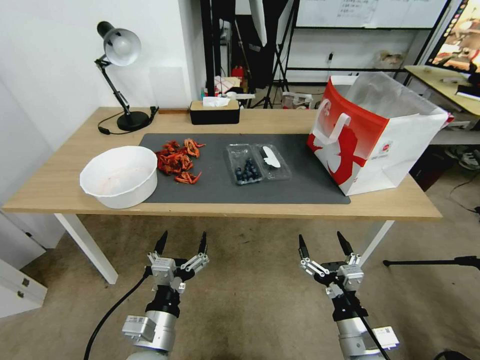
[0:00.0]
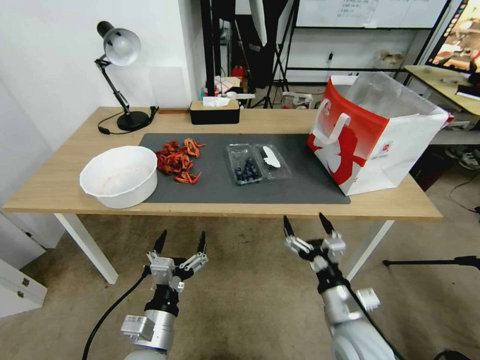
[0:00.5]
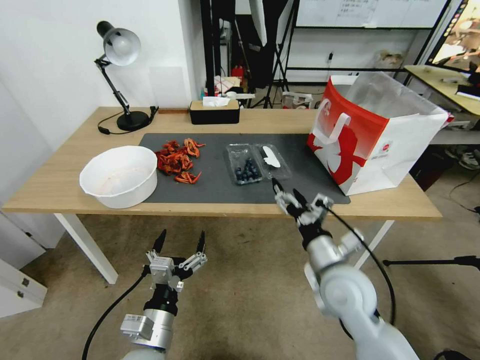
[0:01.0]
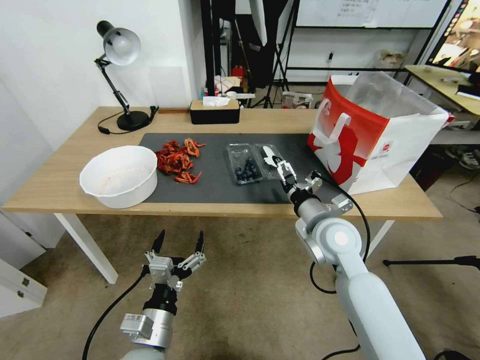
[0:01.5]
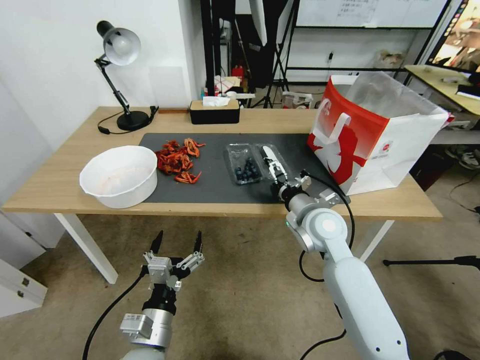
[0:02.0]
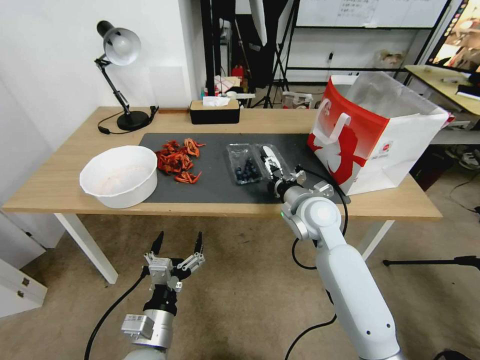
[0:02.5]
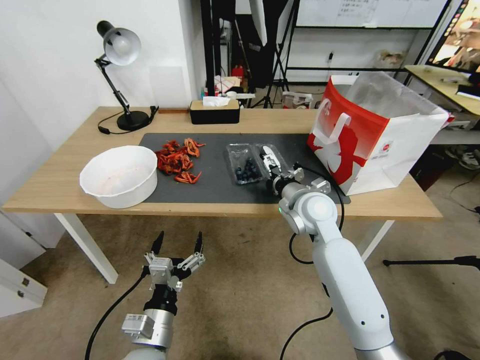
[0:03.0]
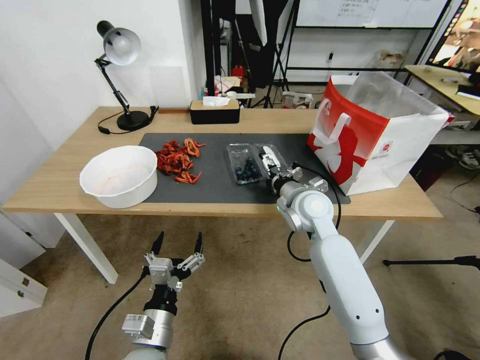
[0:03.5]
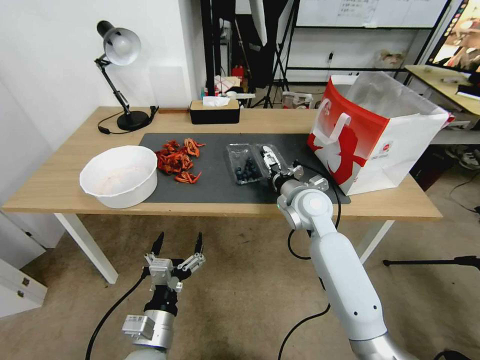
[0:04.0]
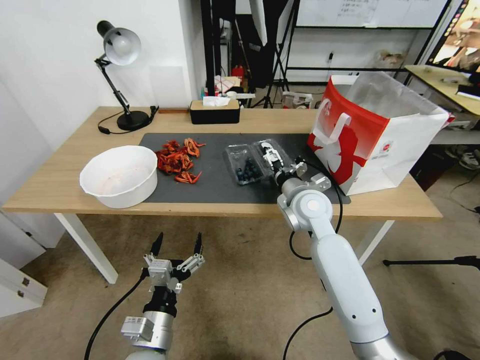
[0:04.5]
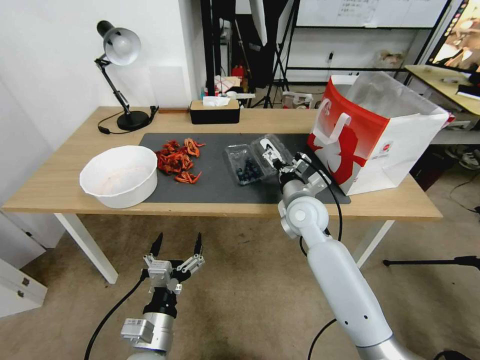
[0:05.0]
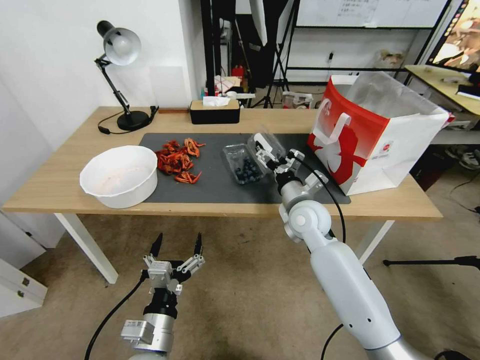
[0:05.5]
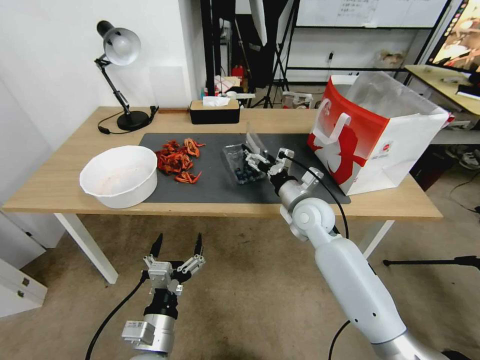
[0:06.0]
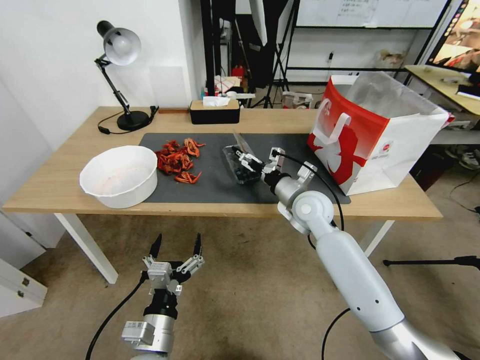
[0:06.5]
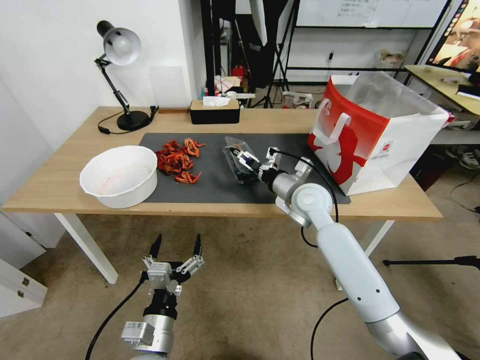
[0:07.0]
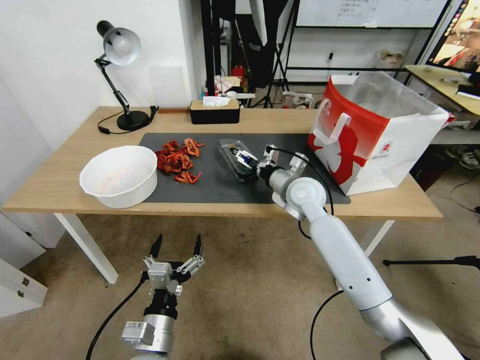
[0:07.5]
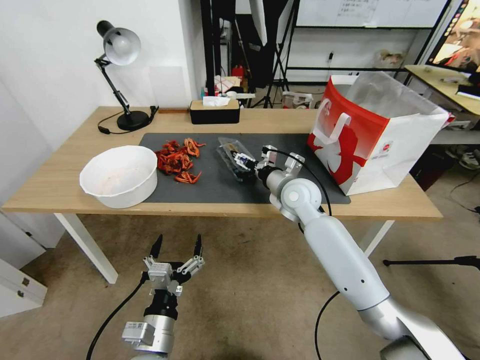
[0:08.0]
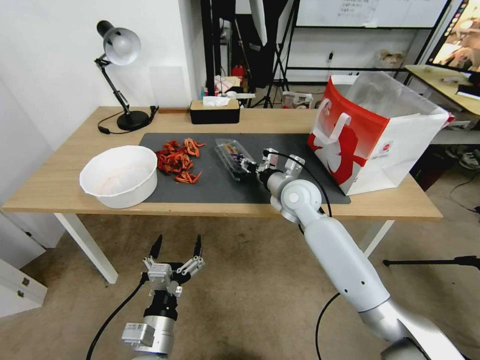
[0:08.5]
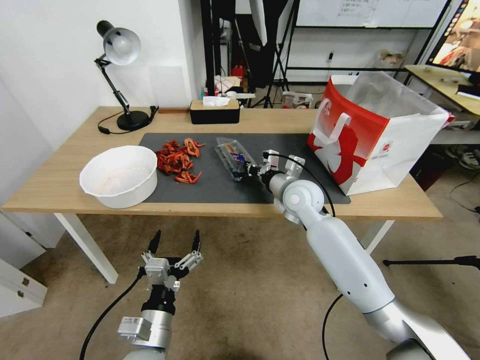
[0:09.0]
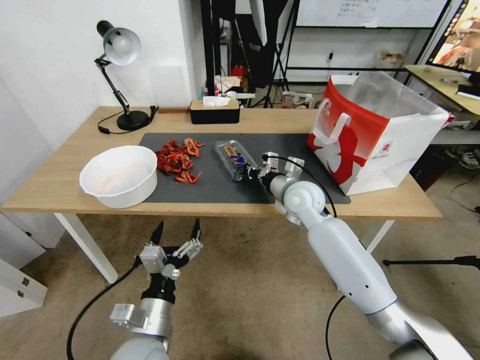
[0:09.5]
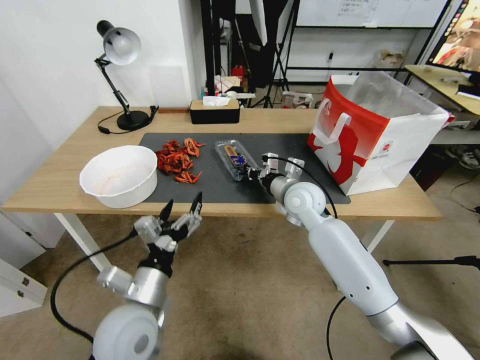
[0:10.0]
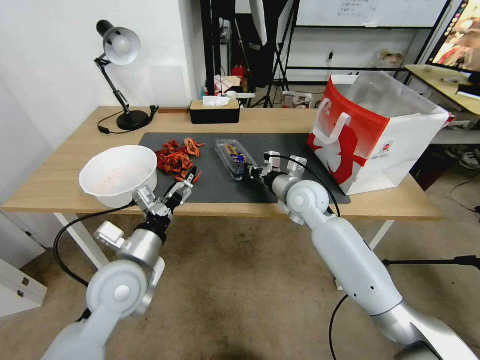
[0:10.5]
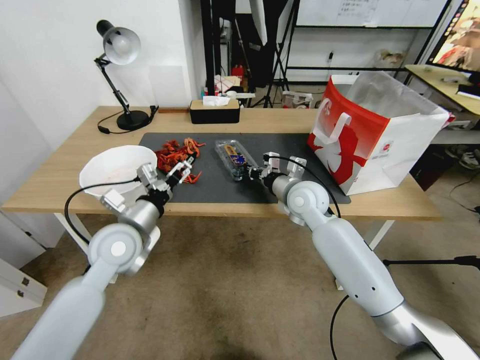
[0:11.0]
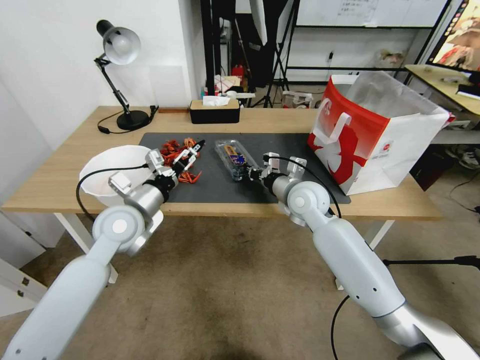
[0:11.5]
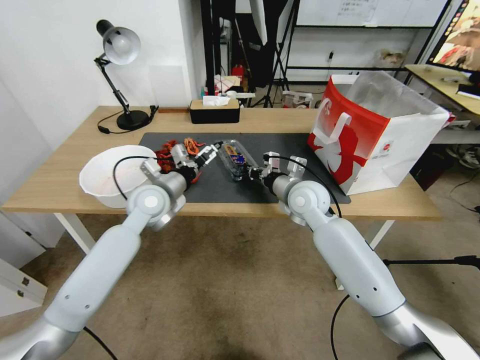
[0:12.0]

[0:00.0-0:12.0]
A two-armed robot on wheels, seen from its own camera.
Task of the whole recording: Close the takeout container lid, then place the container into the takeout bag.
0:00.0 to 0:02.0: The right gripper heads forward and upward, covering some 25 cm.
0:02.0 to 0:04.0: The right gripper changes place by some 5 cm.
0:06.0 to 0:08.0: The right gripper moves approximately 5 cm.
0:08.0 to 0:10.0: The right gripper closes up. Meanwhile the left gripper shifts roughly 10 cm upward and forward.
0:10.0 to 0:12.0: The left gripper moves forward, roughly 25 cm.

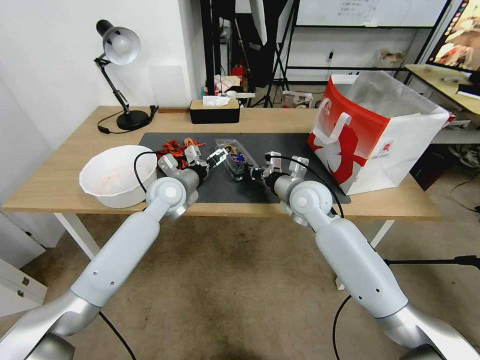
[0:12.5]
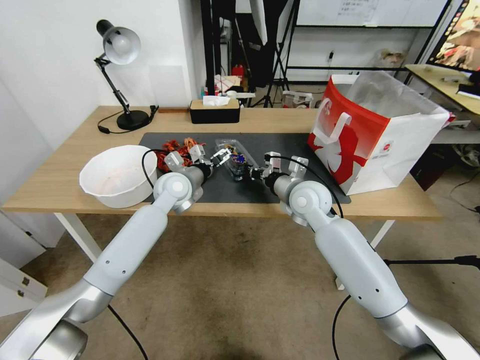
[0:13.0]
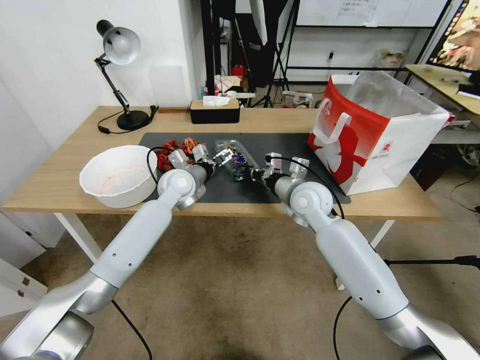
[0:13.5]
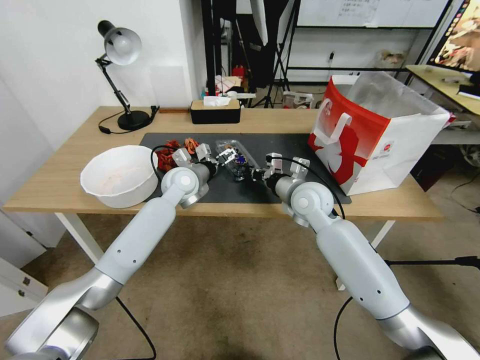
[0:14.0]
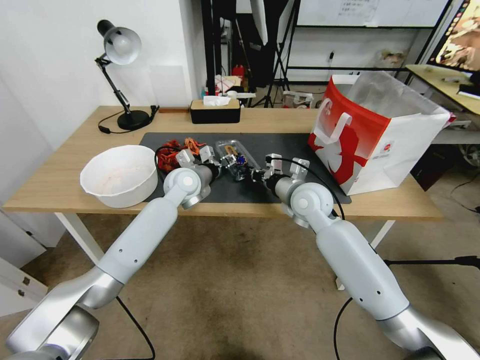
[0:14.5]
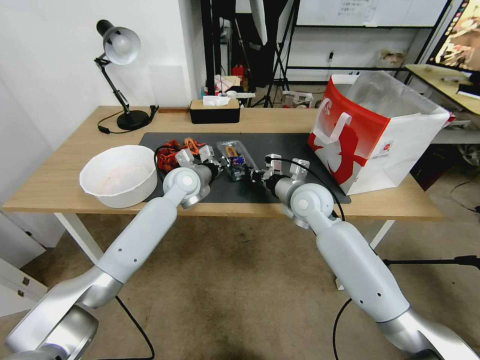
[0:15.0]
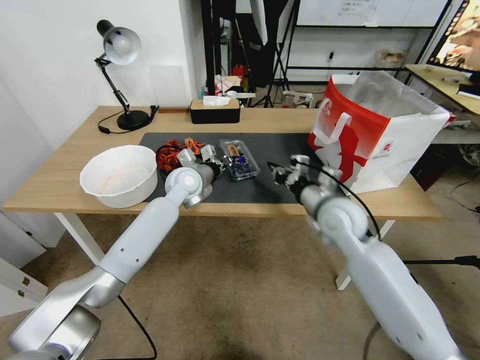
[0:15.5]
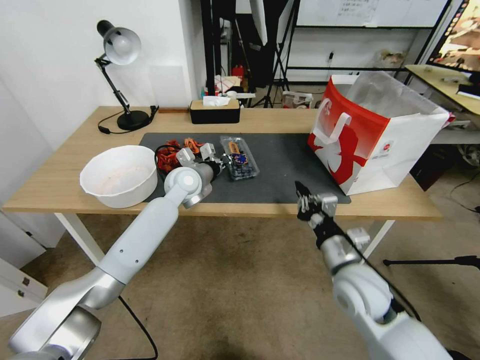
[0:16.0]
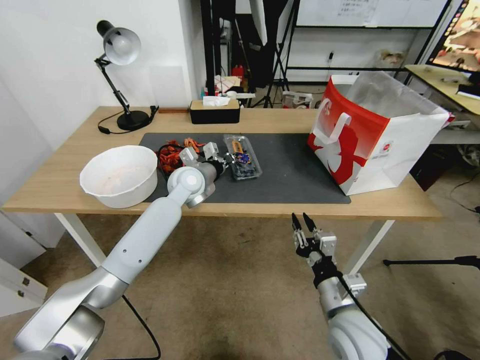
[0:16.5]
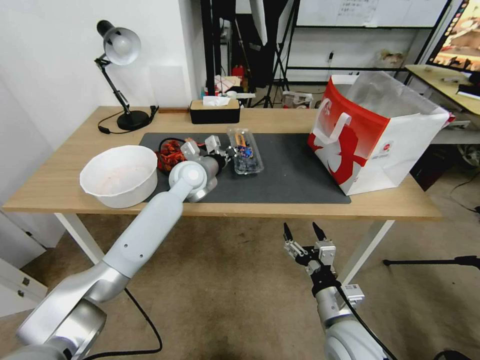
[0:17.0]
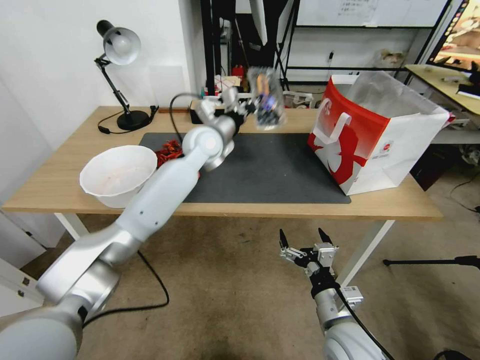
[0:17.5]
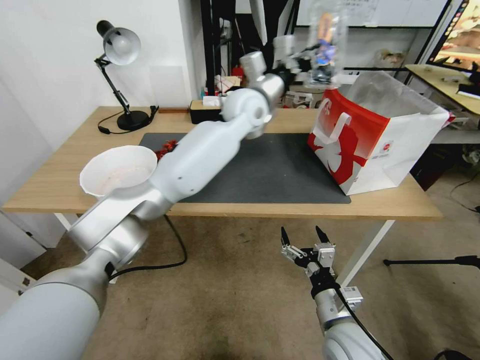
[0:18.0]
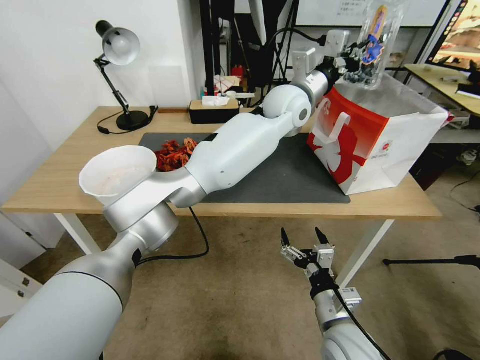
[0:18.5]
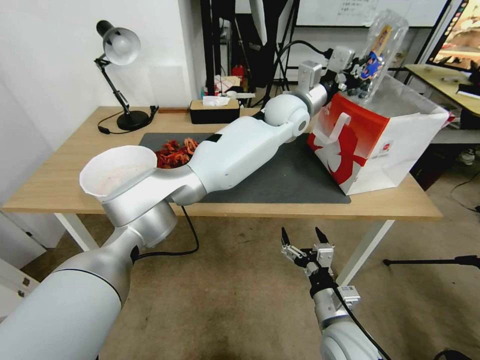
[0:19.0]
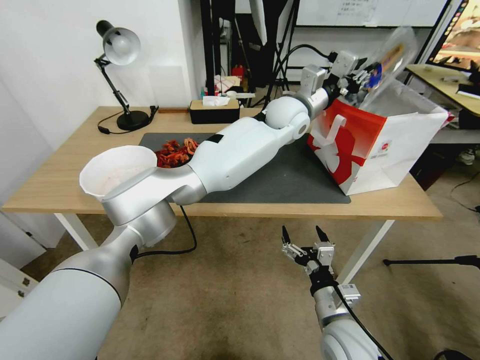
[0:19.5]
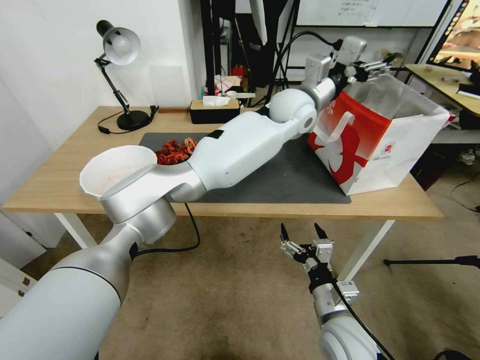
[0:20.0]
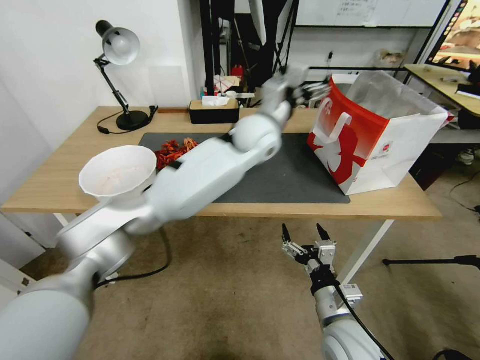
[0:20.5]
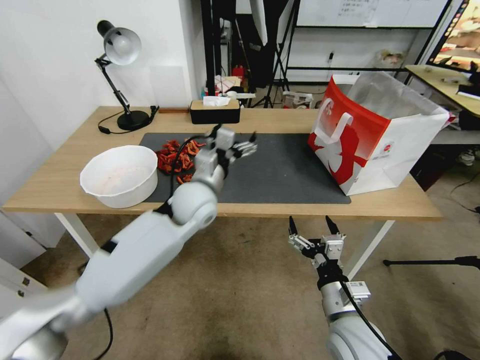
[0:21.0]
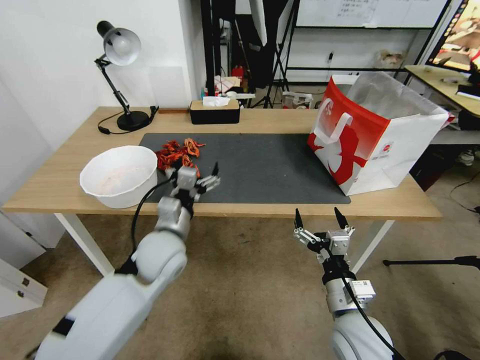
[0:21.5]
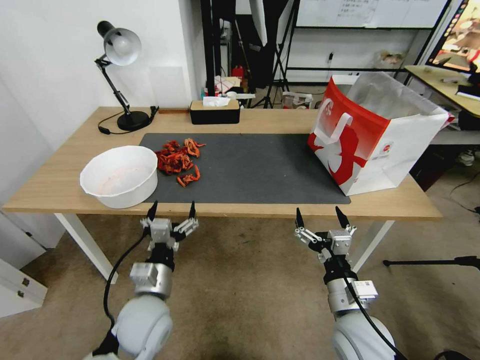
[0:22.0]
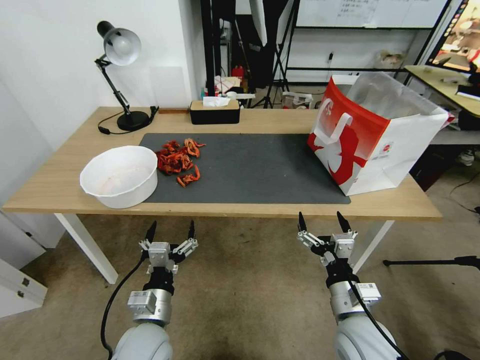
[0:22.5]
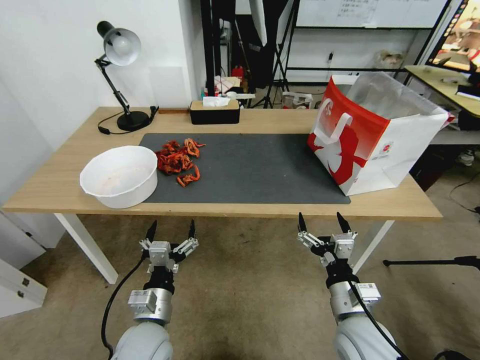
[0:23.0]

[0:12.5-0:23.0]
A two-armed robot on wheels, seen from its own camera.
Task of the whole recording: Close the takeout container lid, then place the container into the takeout bag.
0:12.5 to 0:14.5: The left gripper changes place by approximately 5 cm, and closes.
0:14.5 to 0:16.5: The right gripper goes roughly 25 cm backward and downward; the left gripper closes.
0:16.5 to 0:19.0: The left gripper moves to the right and upward, some 30 cm. Meanwhile the right gripper opens up.
0:19.0 to 0:21.0: The left gripper is displaced to the left, backward and downward by about 30 cm, and opens up.
0:21.0 to 0:23.0: The left gripper moves backward and downward, about 30 cm.

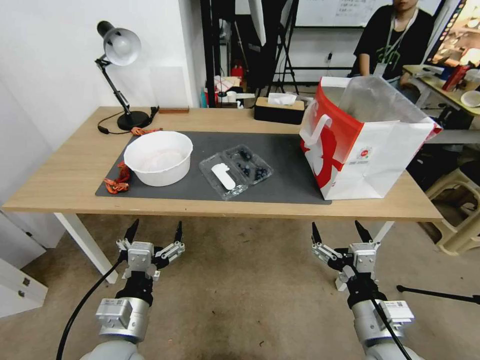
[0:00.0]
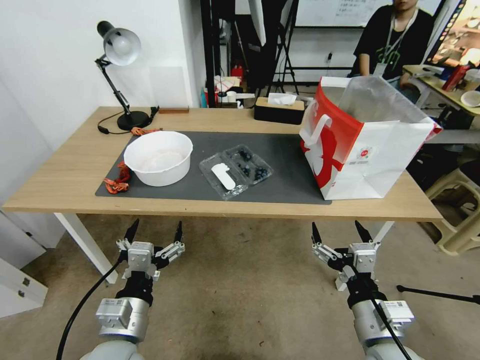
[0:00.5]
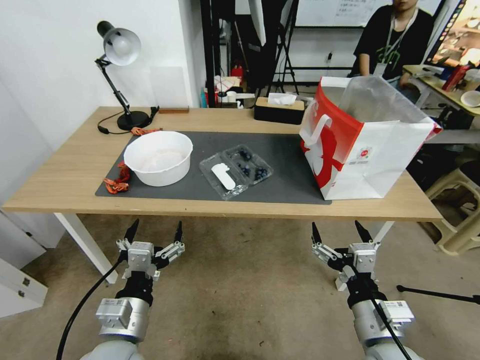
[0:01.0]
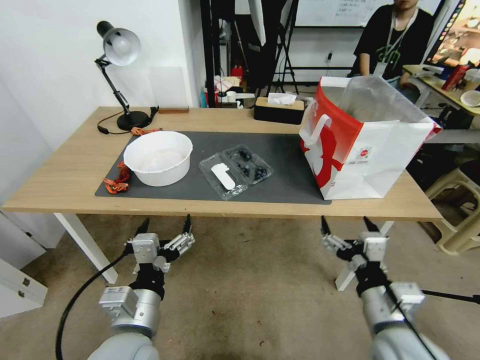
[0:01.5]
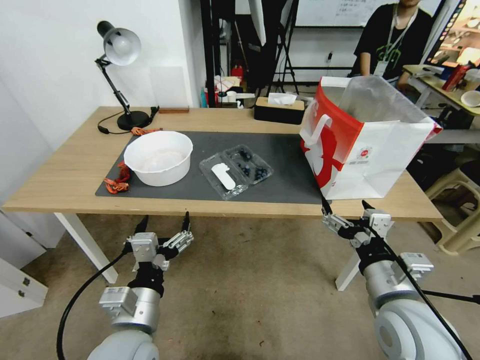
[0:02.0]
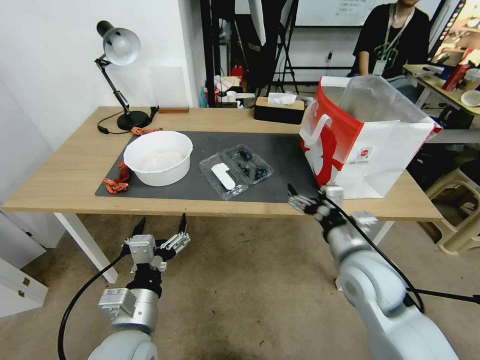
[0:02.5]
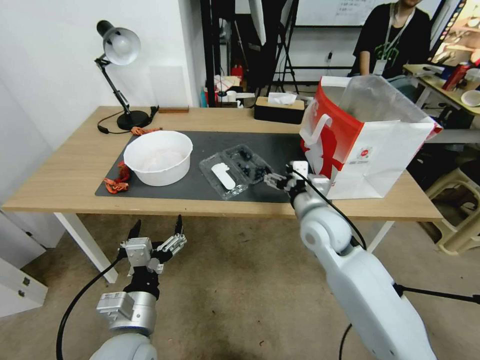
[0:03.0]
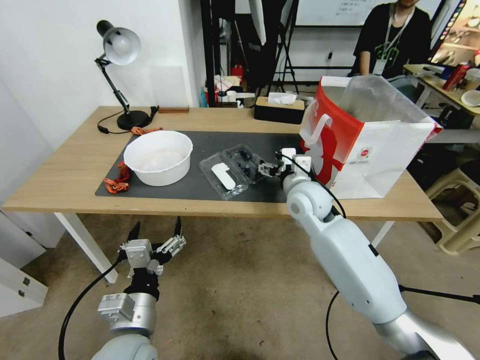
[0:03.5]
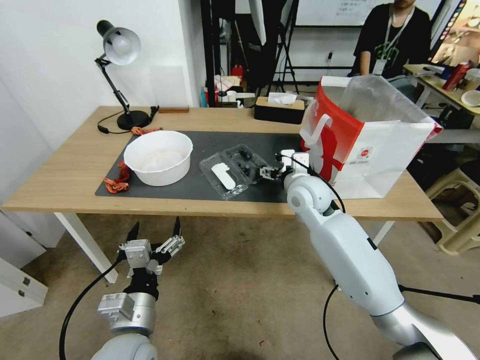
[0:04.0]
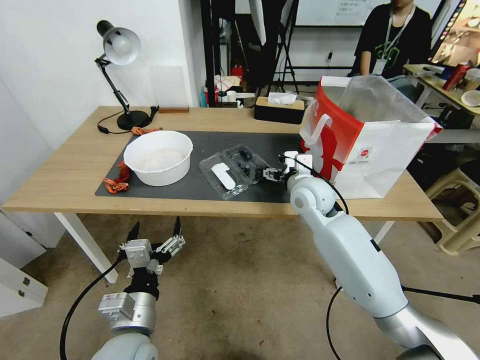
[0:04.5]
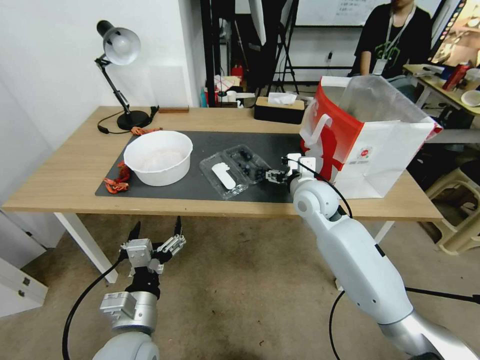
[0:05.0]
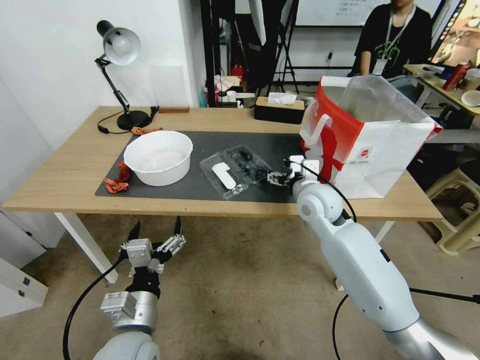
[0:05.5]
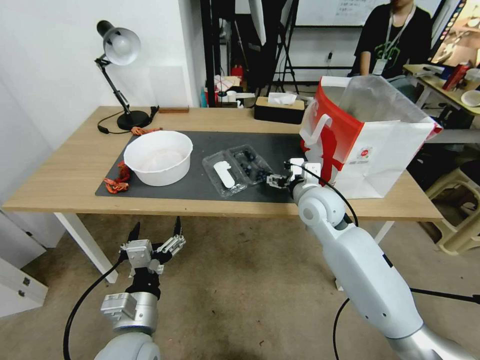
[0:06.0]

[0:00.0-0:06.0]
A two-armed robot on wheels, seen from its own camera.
Task of the whole recording: Close the takeout container lid, then place the container into the takeout bag.
0:02.0 to 0:04.0: The right gripper moves forward, about 25 cm.
0:04.0 to 0:06.0: The grippers make only small movements.
